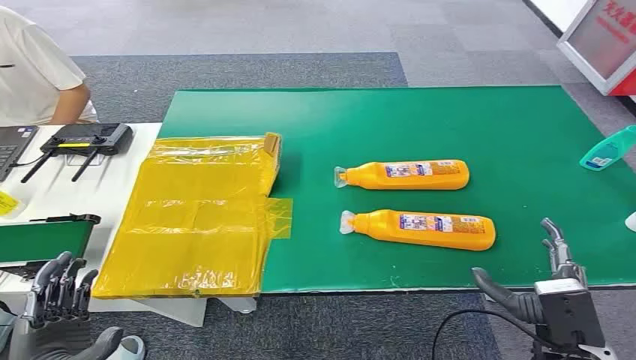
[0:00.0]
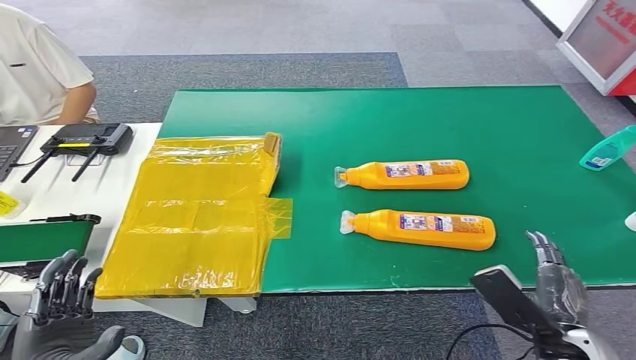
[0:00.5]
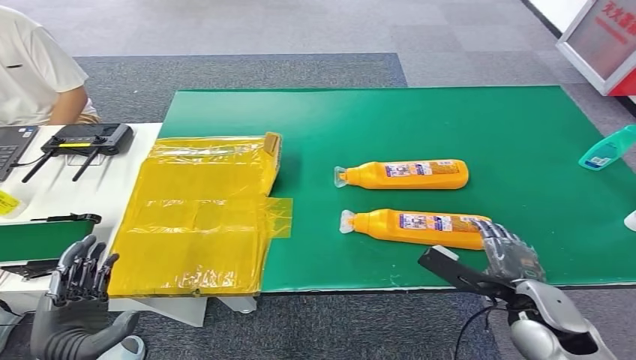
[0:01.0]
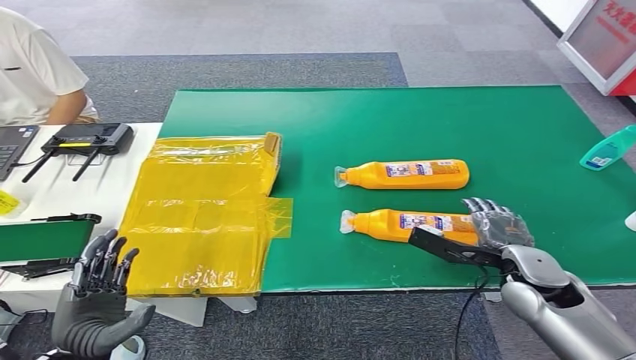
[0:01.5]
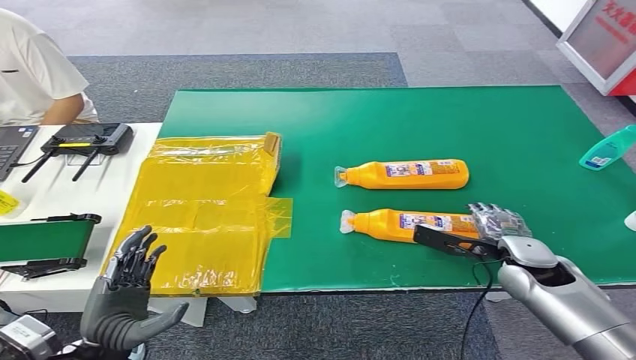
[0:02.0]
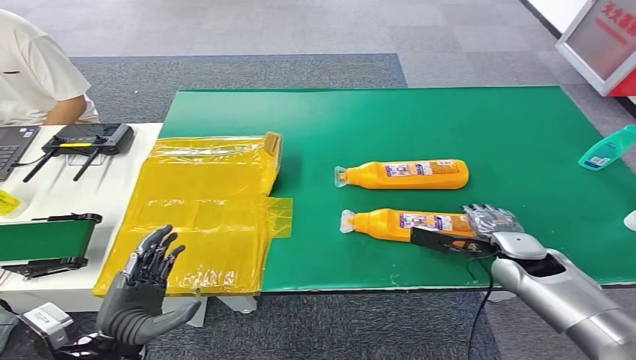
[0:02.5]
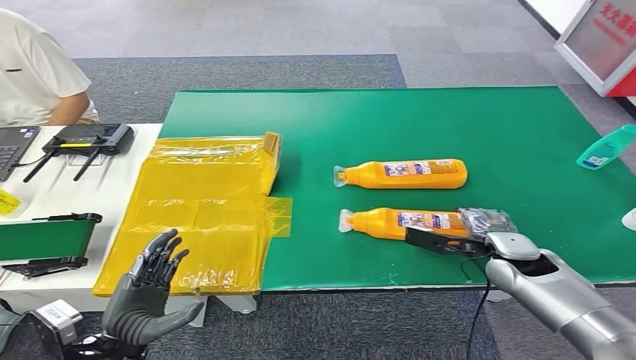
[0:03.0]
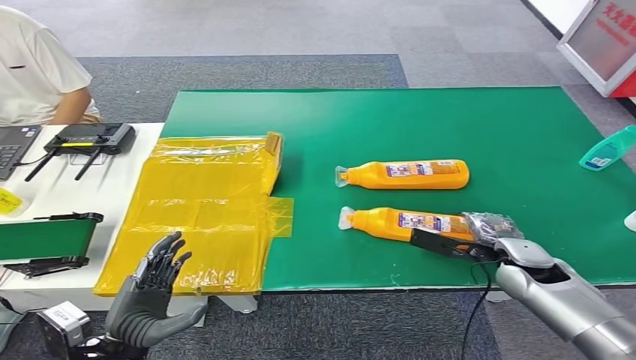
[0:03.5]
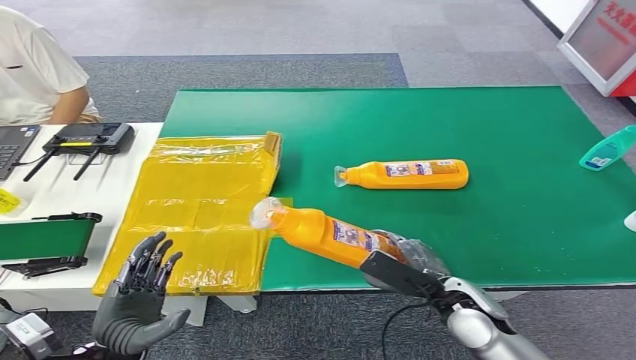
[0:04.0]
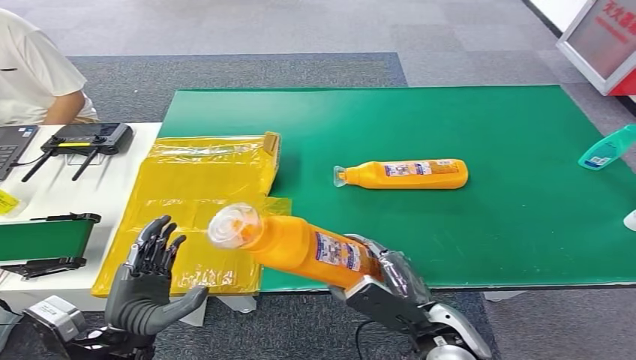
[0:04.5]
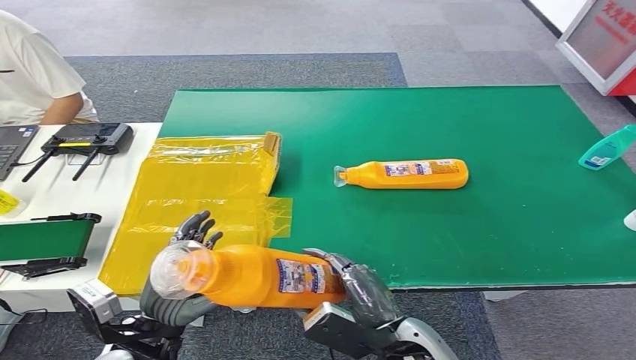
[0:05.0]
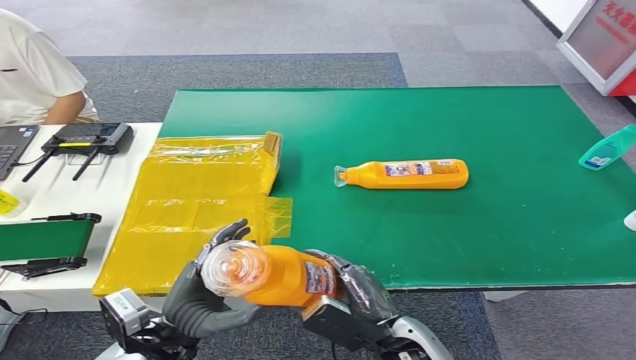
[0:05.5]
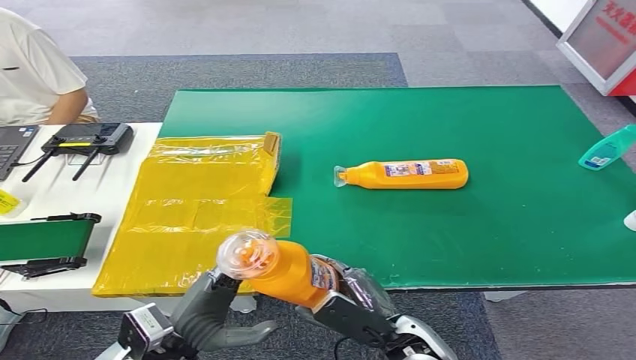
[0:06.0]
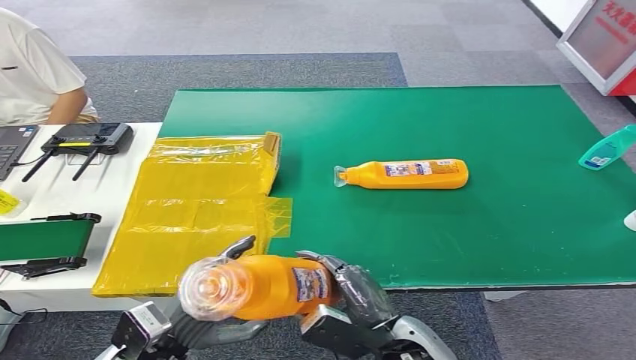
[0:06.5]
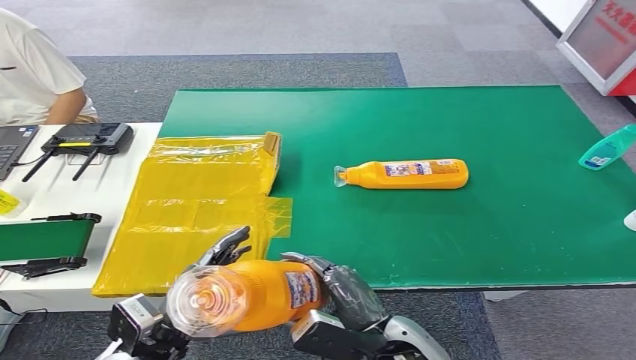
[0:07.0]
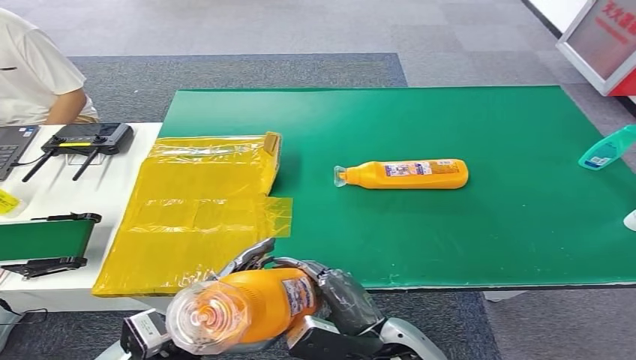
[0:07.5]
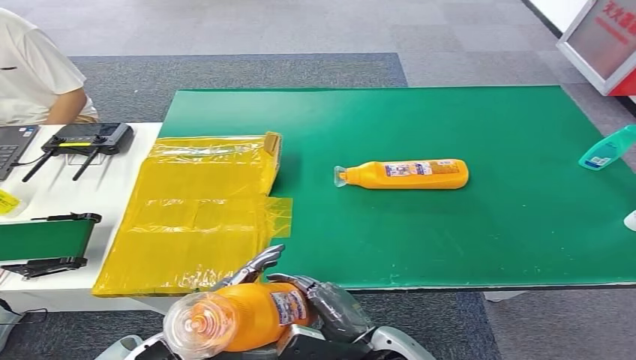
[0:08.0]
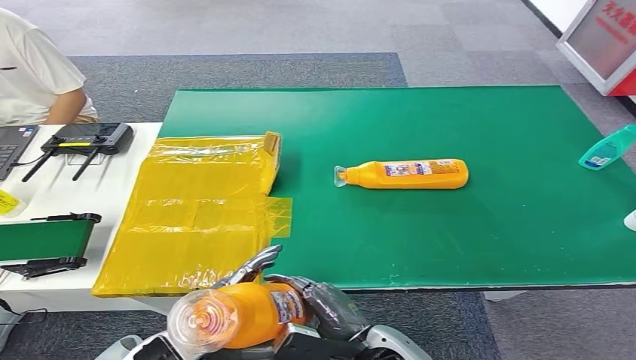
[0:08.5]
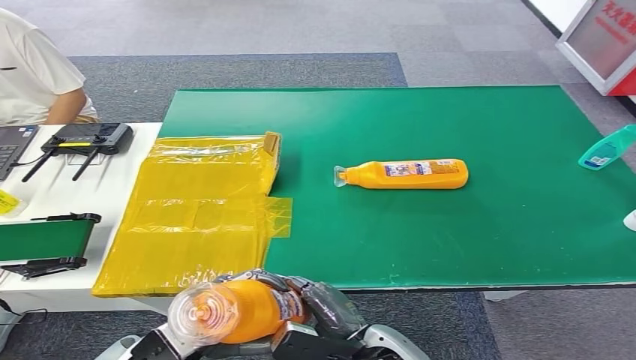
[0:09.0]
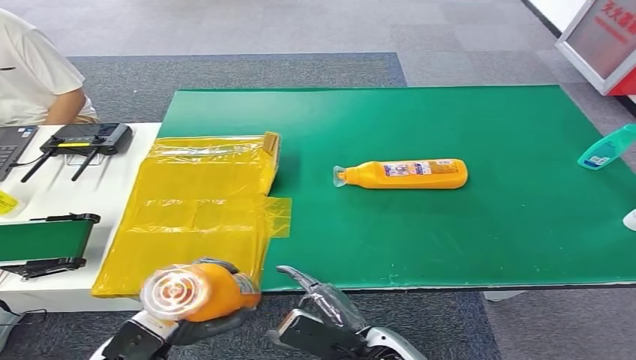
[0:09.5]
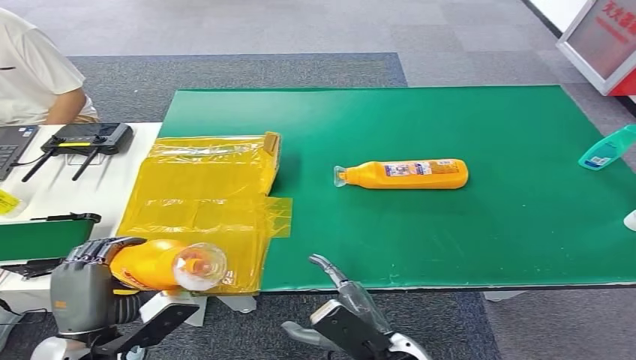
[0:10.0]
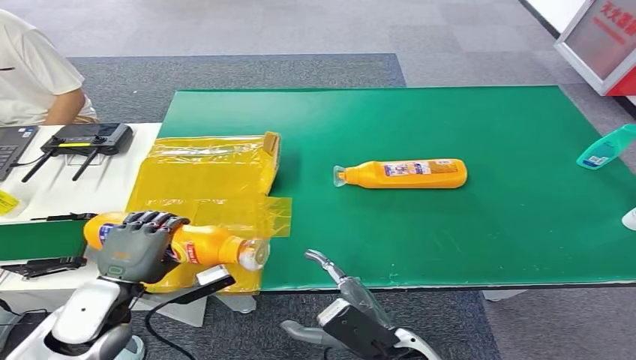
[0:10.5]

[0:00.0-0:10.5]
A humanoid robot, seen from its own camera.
Step, 0:00.0 to 0:04.5: Pick up the bottle from the table.
0:02.0 to 0:04.0: The right hand heads to the left and backward, covering approximately 10 cm.
0:04.0 to 0:06.5: The right hand is displaced to the left and backward by approximately 15 cm; the left hand moves some 5 cm.
0:06.5 to 0:08.5: The hands stay close to where they were, moving slightly.
0:08.5 to 0:10.5: The left hand goes about 15 cm to the left and forward.

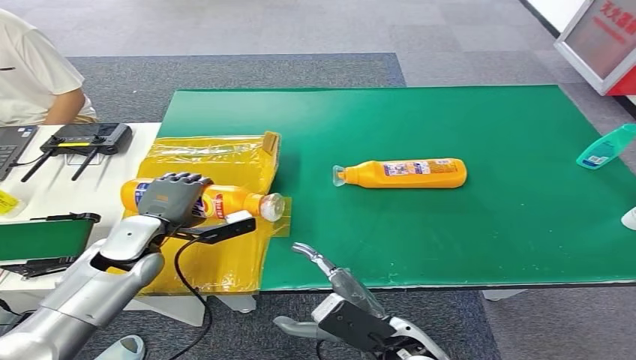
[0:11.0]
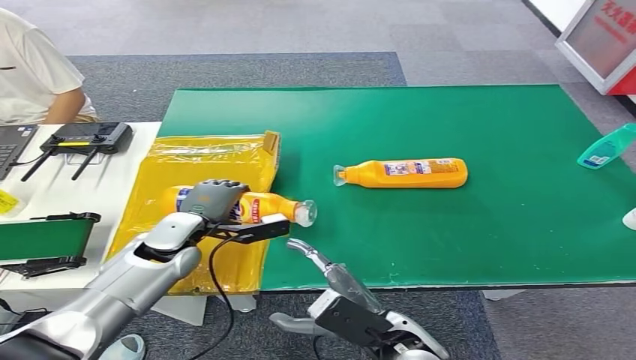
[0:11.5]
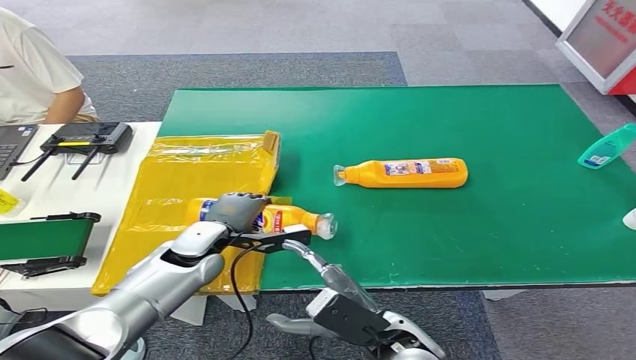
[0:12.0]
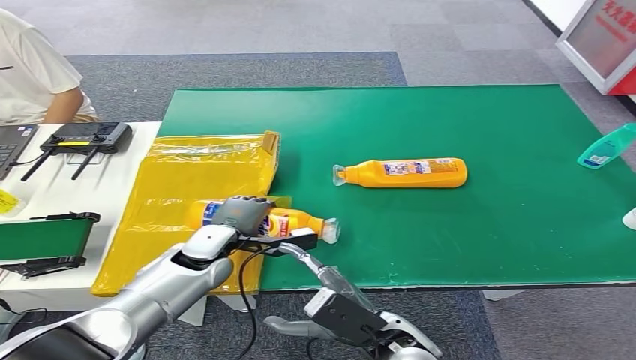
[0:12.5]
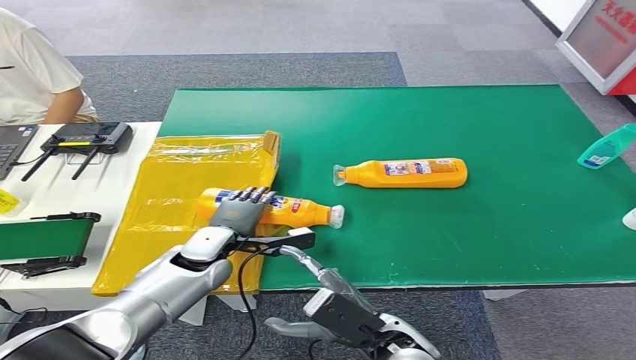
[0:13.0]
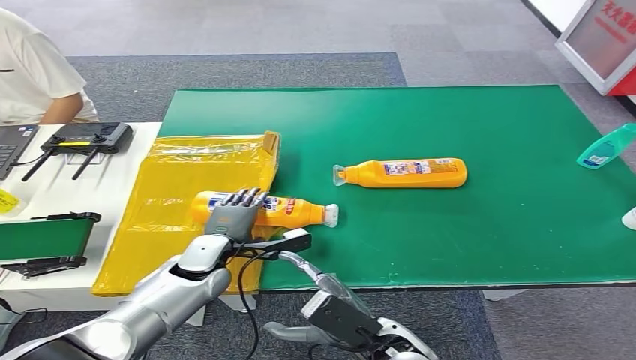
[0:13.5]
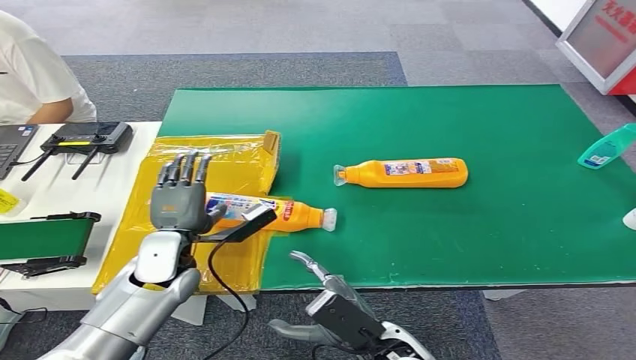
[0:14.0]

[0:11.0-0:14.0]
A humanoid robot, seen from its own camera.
Step, 0:11.0 to 0:14.0: Turn the bottle to the front side.
0:11.0 to 0:12.5: The left hand shifts approximately 10 cm to the right.
0:12.5 to 0:14.0: The left hand ends up about 5 cm from where it was.
